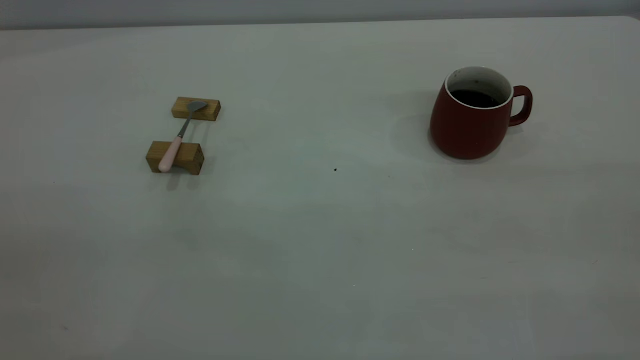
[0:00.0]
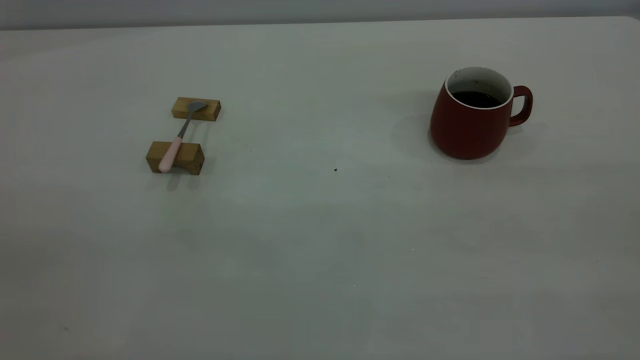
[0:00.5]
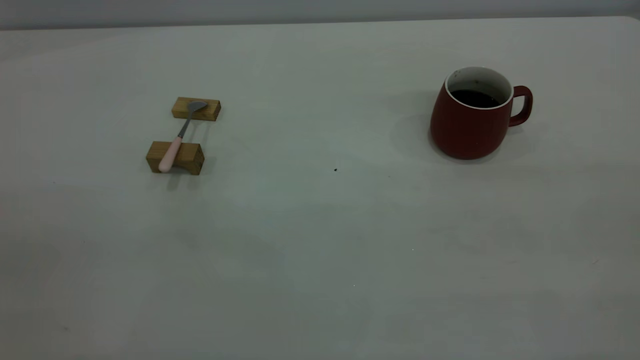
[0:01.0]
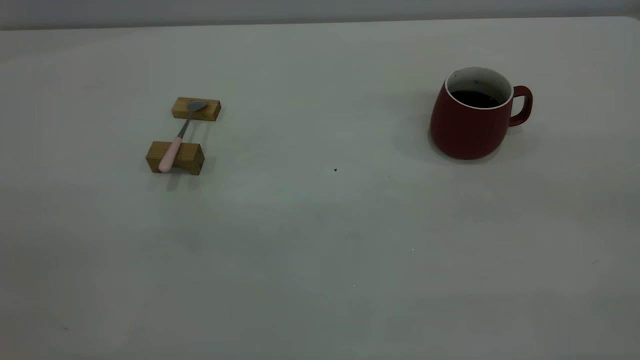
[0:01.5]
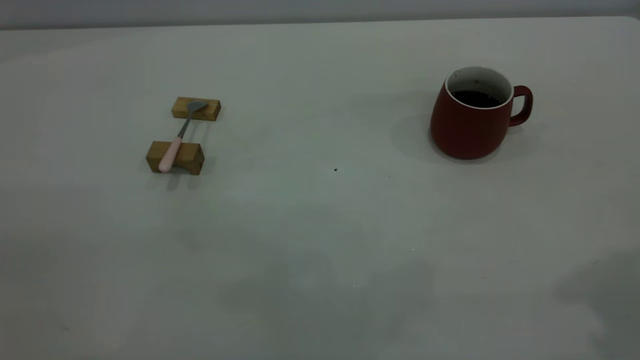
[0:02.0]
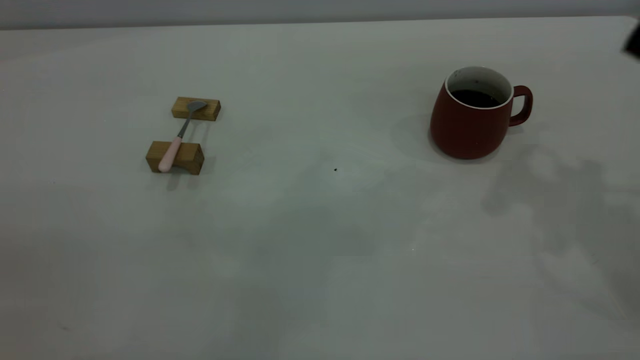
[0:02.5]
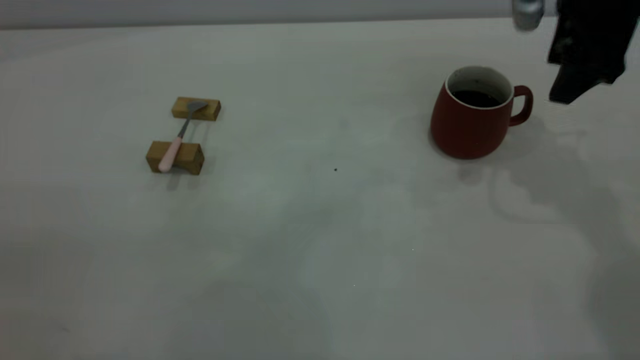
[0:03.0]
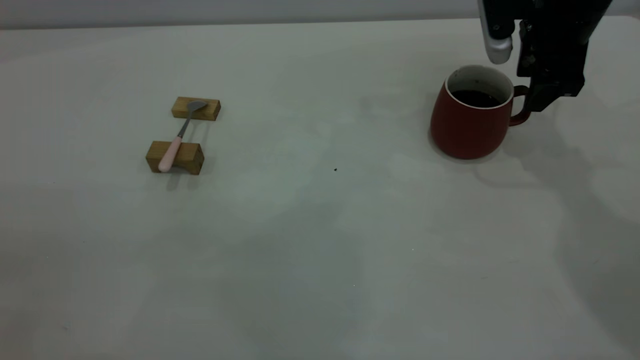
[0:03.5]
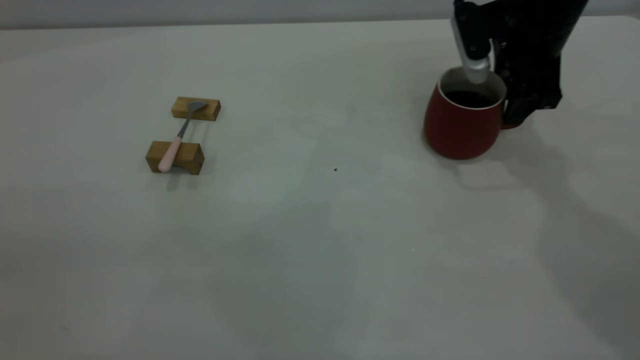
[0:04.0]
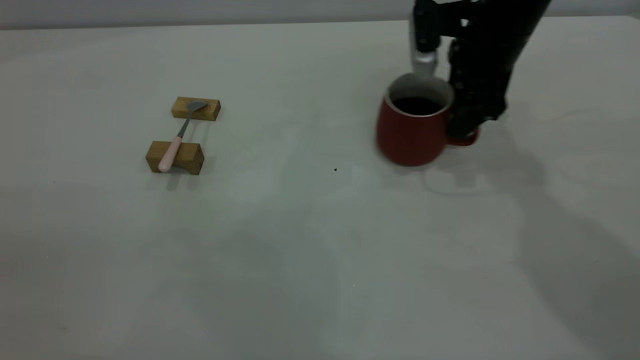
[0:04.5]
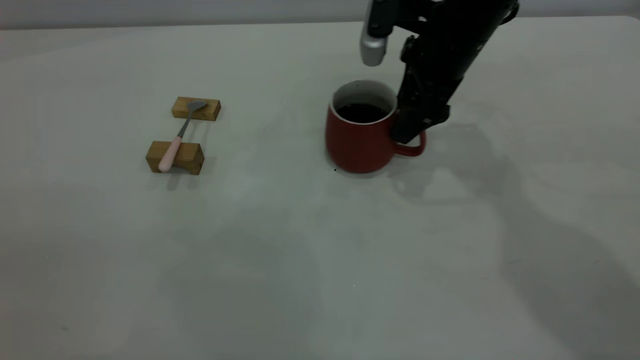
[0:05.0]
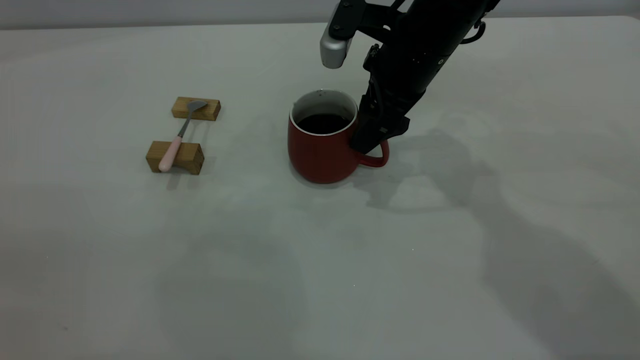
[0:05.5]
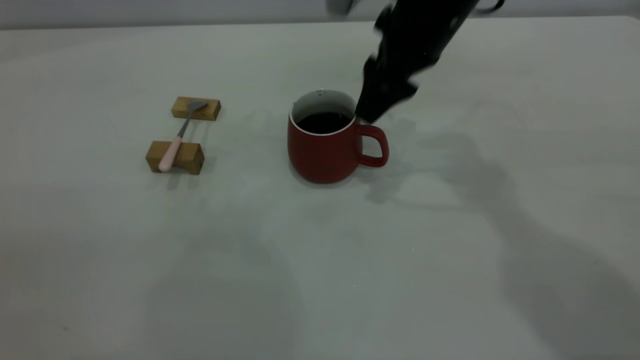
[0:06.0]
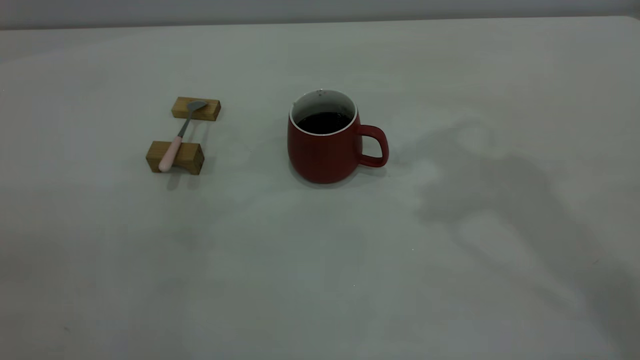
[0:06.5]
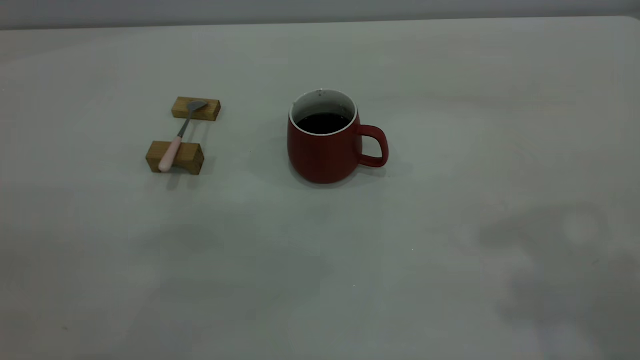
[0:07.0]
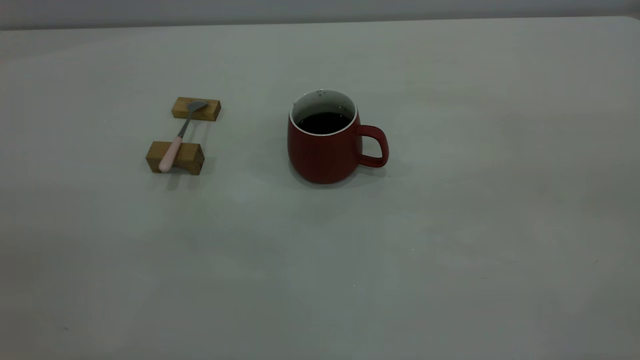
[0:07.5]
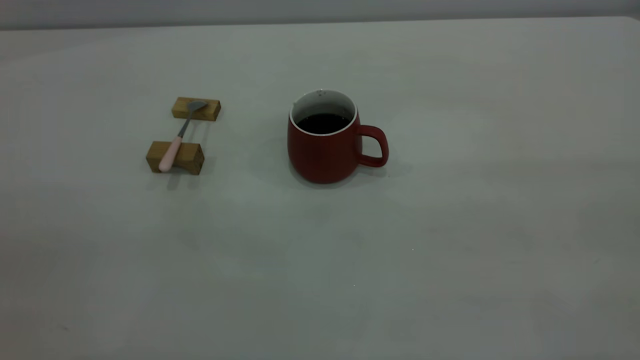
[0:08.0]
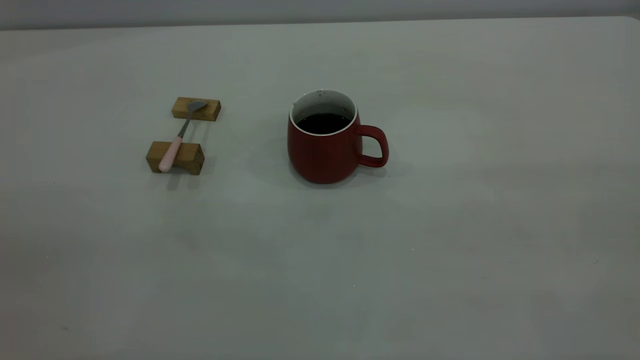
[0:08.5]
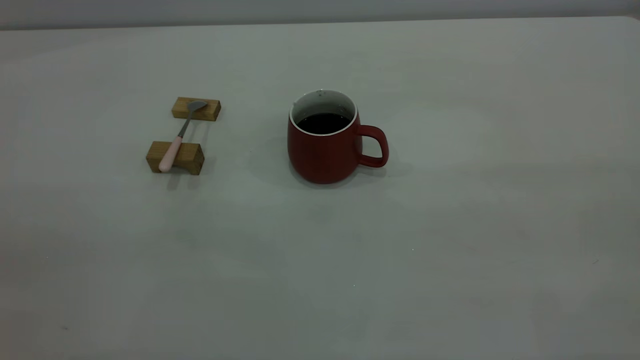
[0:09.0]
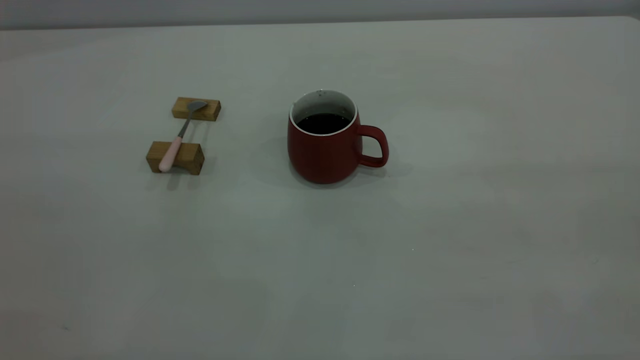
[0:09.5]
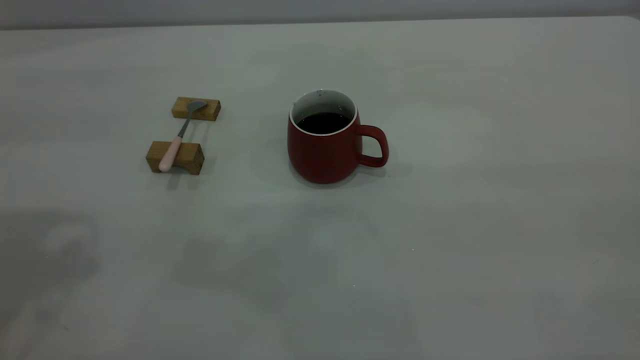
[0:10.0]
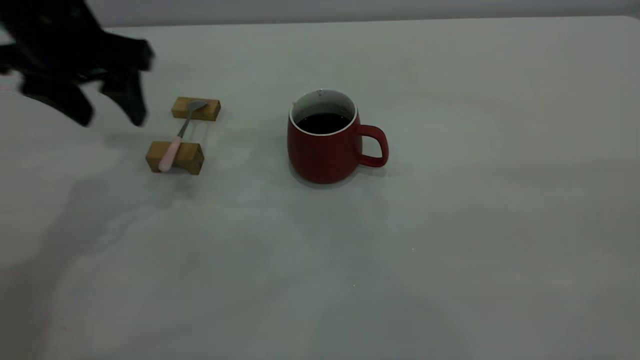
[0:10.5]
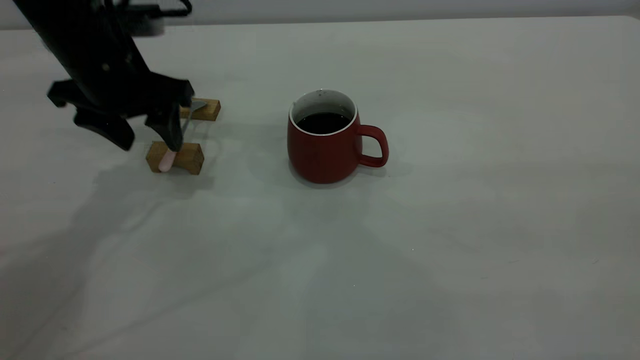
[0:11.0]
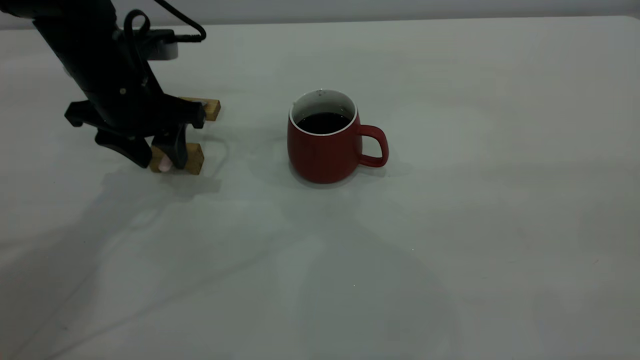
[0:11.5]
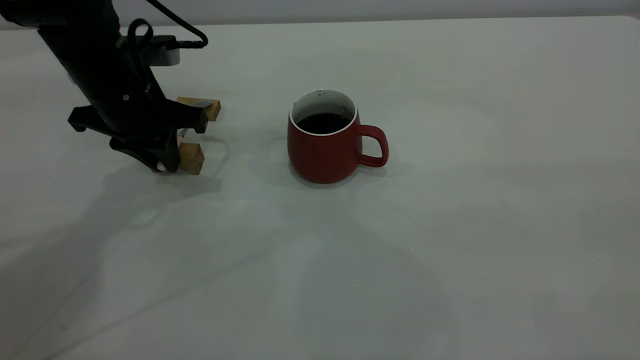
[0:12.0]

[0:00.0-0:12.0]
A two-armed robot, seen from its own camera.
Step, 0:00.0 to 0:06.0: Move the cup with coffee to the center of view.
0:02.0 to 0:04.0: The right gripper shifts approximately 35 cm forward and downward.
0:04.0 to 0:06.0: The right gripper goes approximately 10 cm to the left and upward.
0:06.0 to 0:08.0: The right gripper goes roughly 50 cm backward, to the right and upward.
0:10.0 to 0:12.0: The left gripper moves downward and forward, approximately 25 cm, and closes.

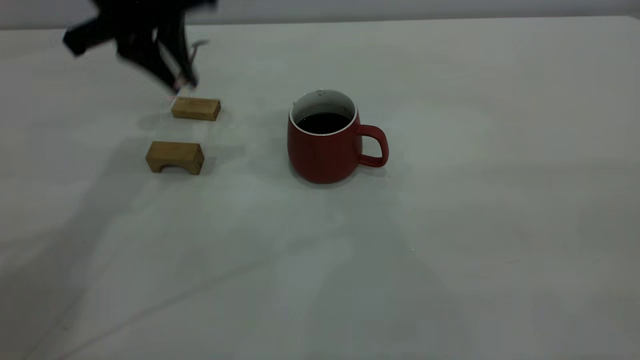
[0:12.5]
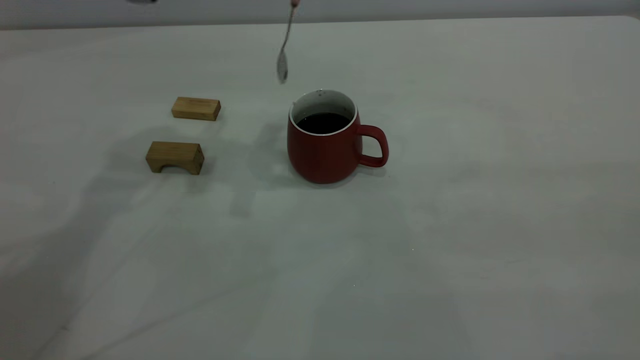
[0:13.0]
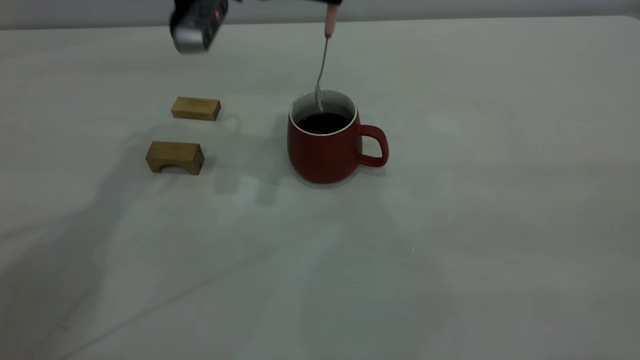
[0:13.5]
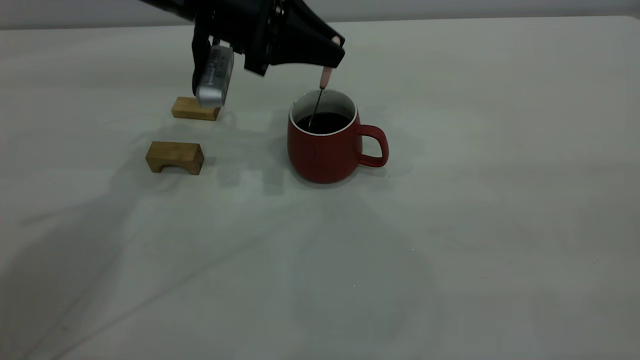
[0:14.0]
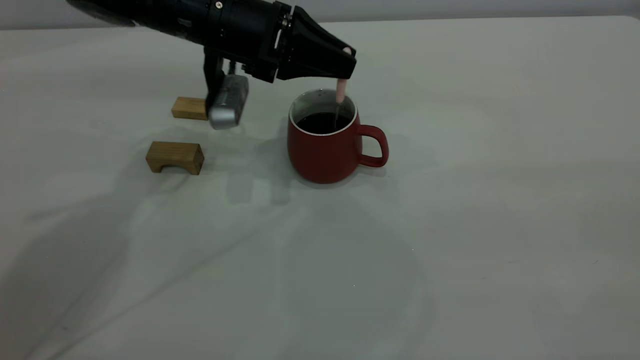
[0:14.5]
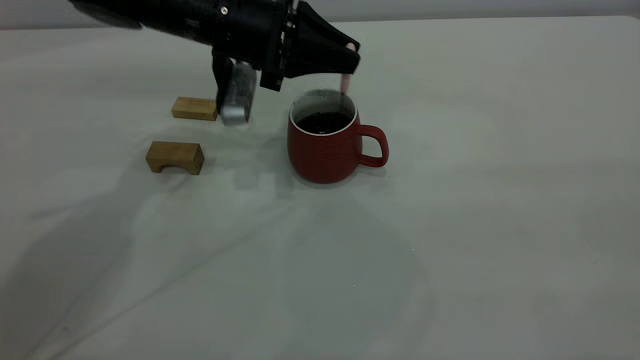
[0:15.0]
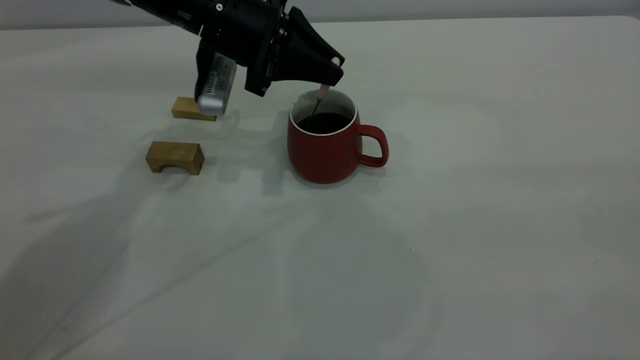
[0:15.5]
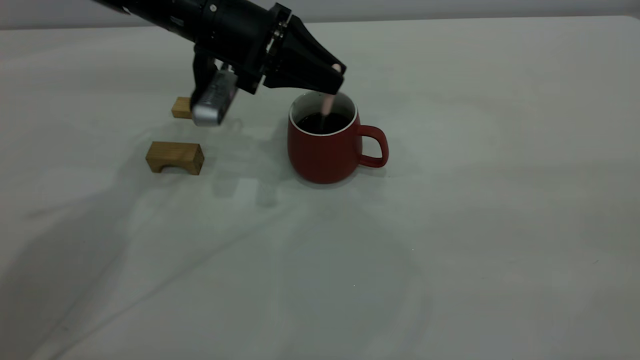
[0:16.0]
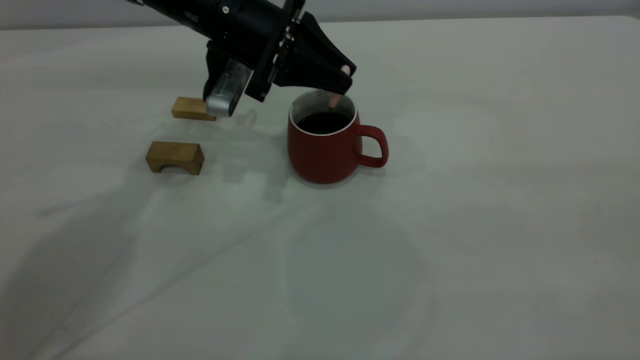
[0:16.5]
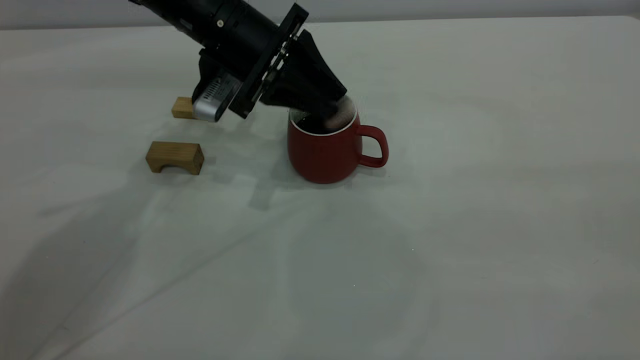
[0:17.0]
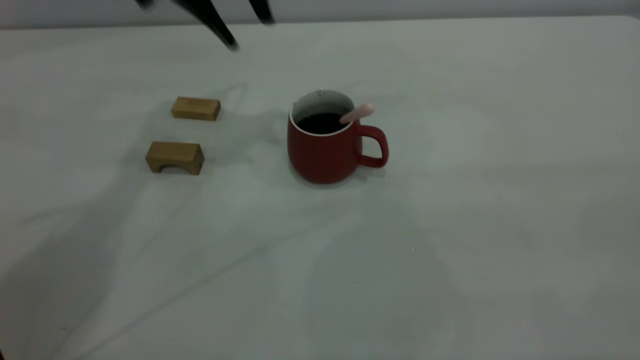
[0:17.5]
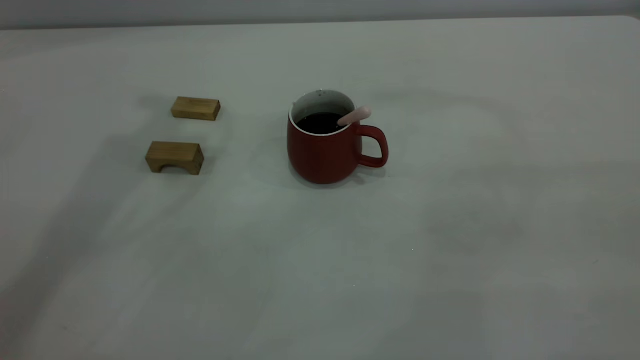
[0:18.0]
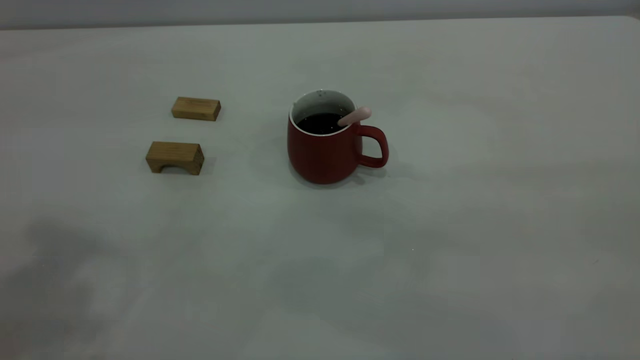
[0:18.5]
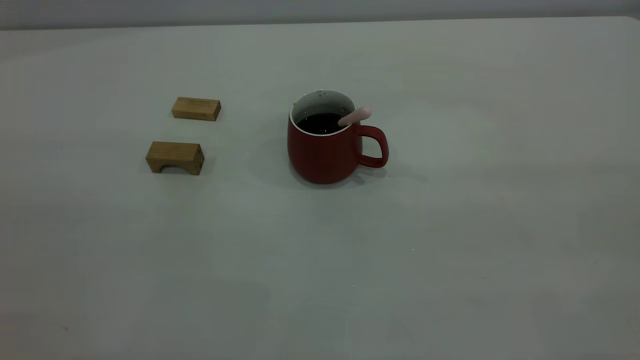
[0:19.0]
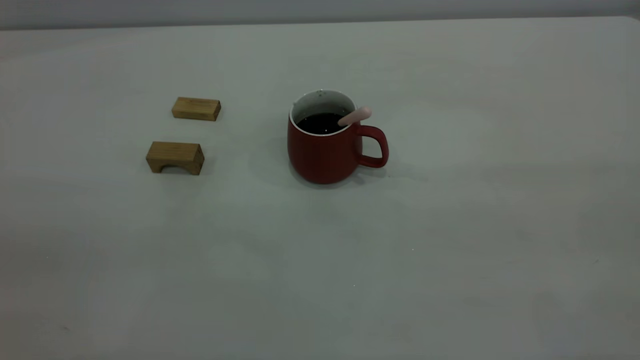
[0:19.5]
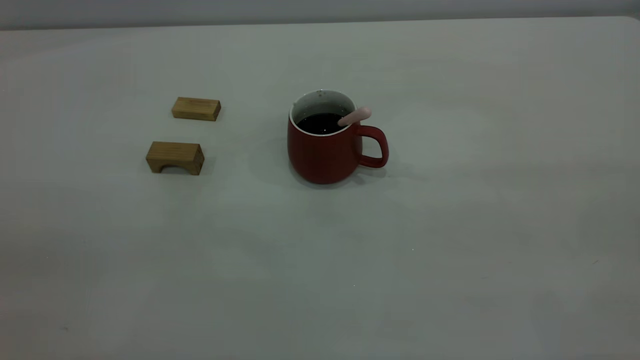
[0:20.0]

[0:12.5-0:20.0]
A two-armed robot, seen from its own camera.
Step, 0:12.5 to 0:17.0: Stir the coffee in the cup.
0:12.5 to 0:14.5: The left gripper goes roughly 10 cm downward and to the right.
0:16.5 to 0:18.0: The left gripper moves upward, approximately 30 cm, and opens its fingers.
